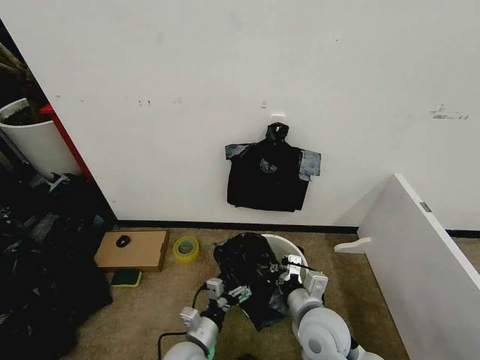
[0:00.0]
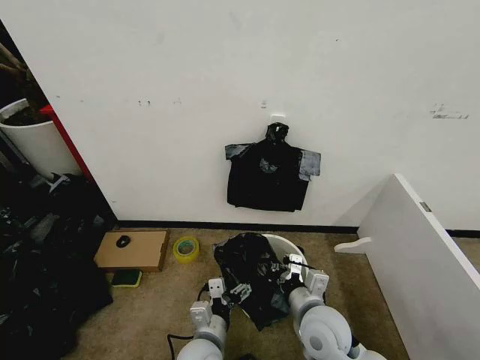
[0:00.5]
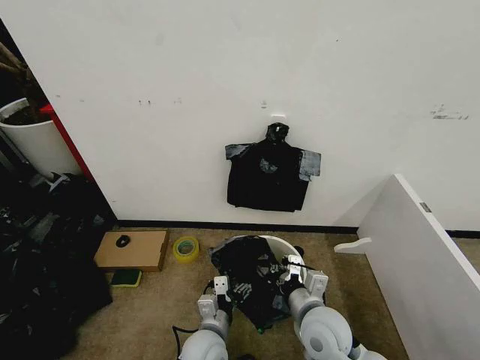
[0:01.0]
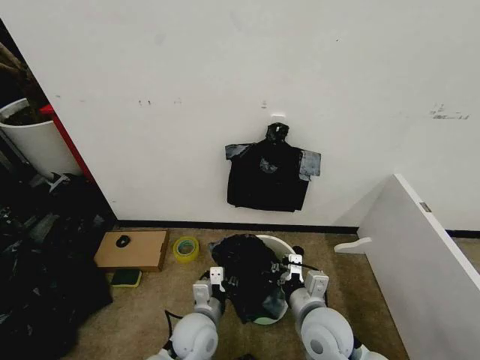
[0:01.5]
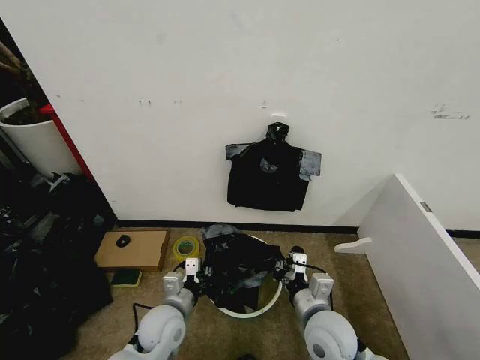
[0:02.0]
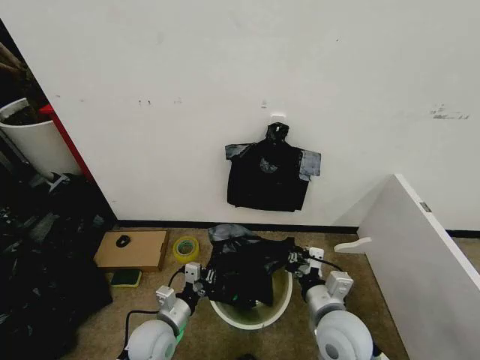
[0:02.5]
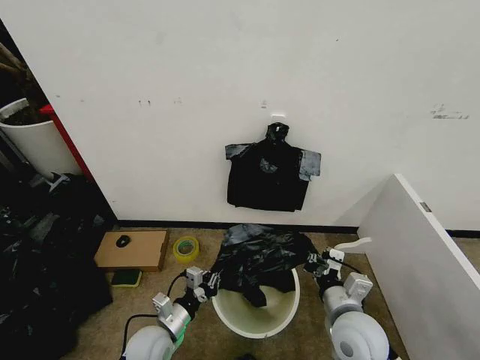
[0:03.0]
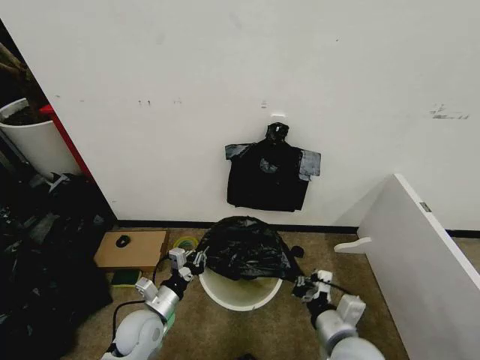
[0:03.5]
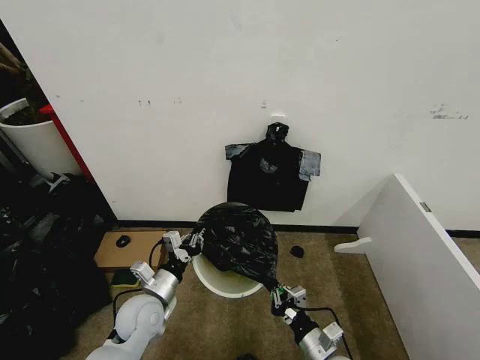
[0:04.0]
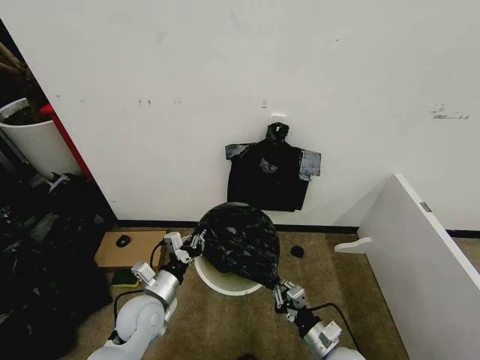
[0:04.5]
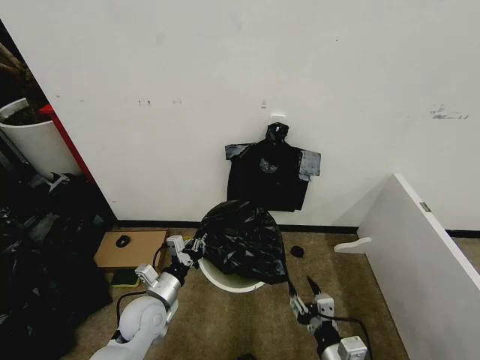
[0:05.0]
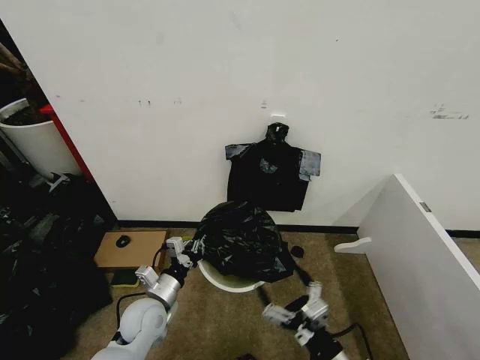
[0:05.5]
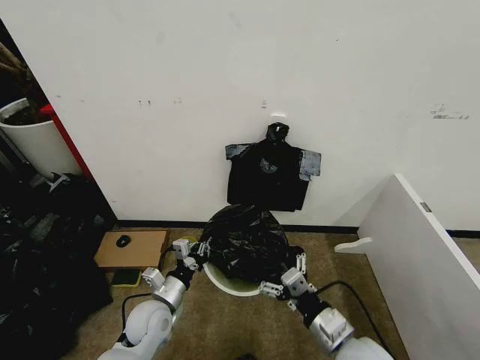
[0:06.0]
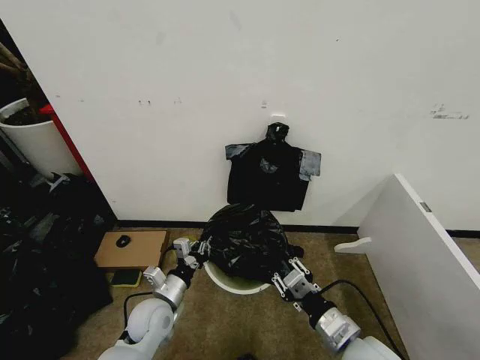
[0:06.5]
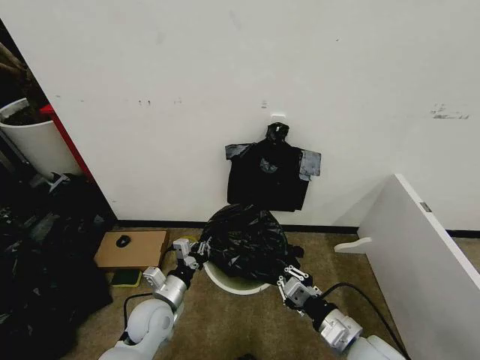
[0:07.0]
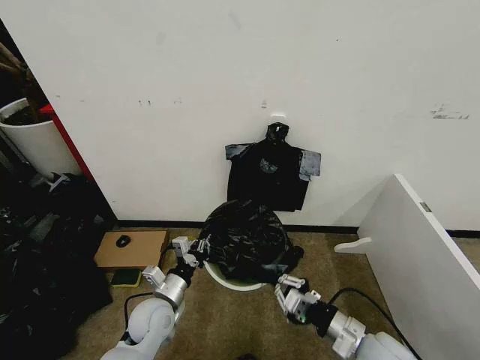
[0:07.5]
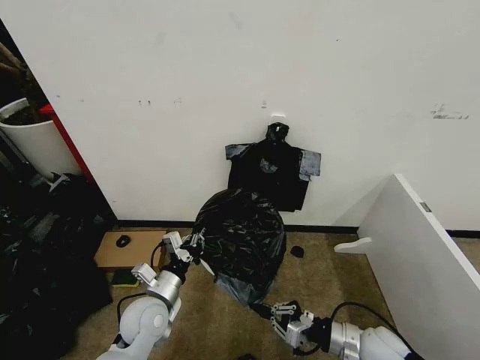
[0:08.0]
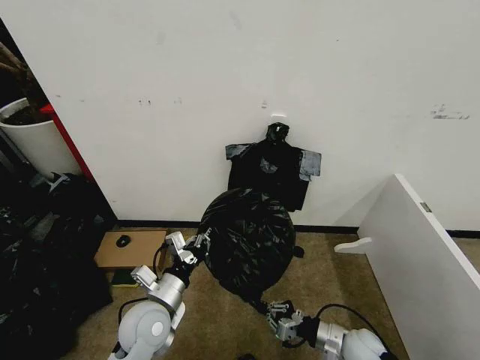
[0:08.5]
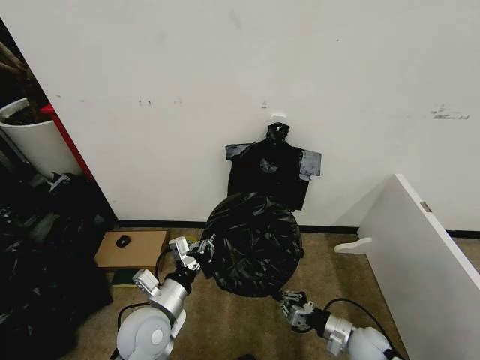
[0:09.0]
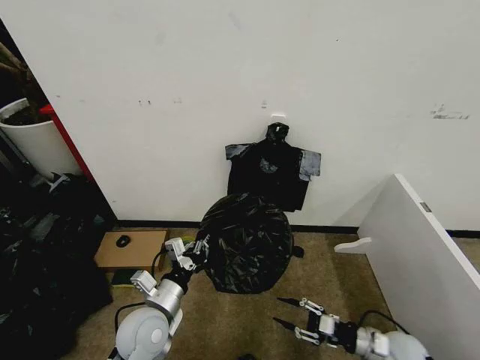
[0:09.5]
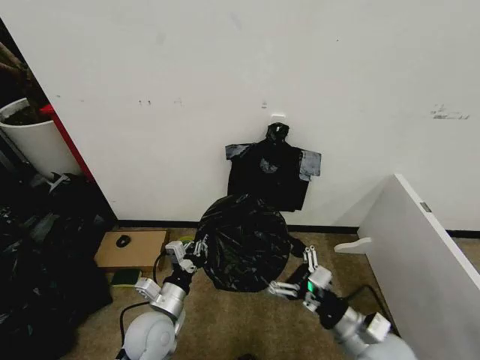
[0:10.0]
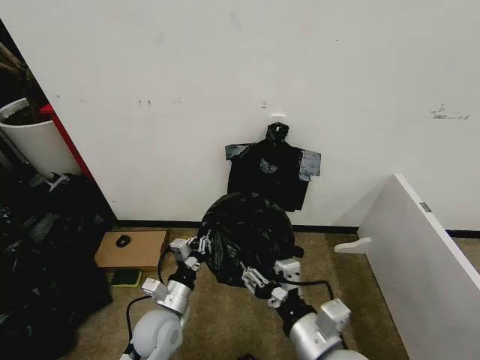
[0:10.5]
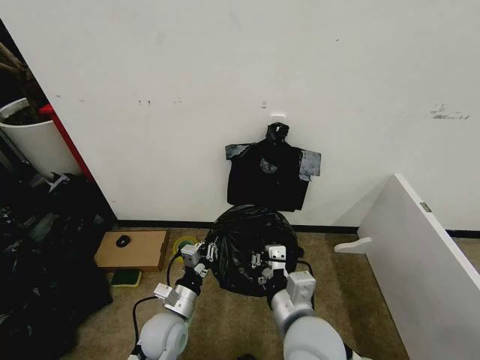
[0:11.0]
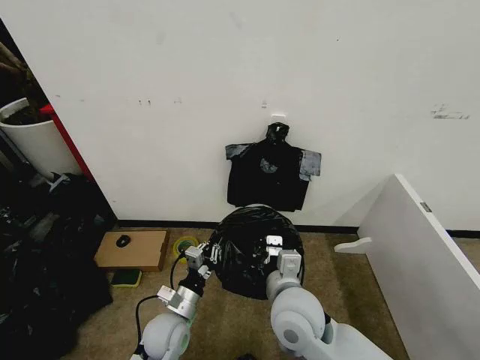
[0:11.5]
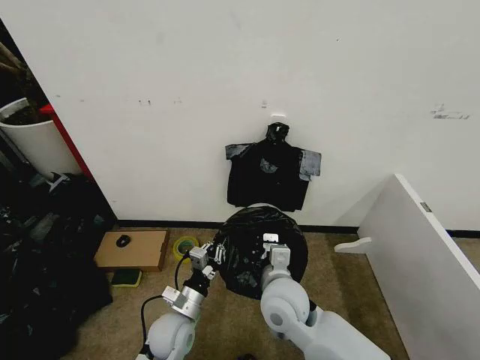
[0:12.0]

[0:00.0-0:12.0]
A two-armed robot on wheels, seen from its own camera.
Task of the whole recording: Place the garbage bag over the trash bin.
0:00.0 to 0:02.0: The left gripper travels upward and forward by about 10 cm, and closes its fingers.
0:02.0 to 0:04.0: The right gripper travels downward and backward by roughly 10 cm.
0:04.0 to 0:06.0: The right gripper shifts approximately 10 cm upward, and opens up.
0:06.0 to 0:08.0: The right gripper is displaced to the right and downward by roughly 10 cm, and closes its fingers.
0:08.0 to 0:10.0: The right gripper shifts approximately 5 cm upward, and opens.
0:10.0 to 0:12.0: The right gripper shifts some 20 cm to the left and forward, and closes. Meanwhile the left gripper shifts by roughly 5 cm.

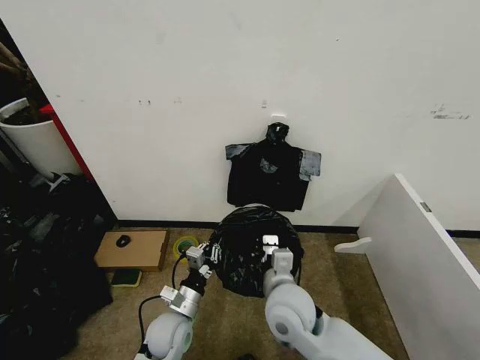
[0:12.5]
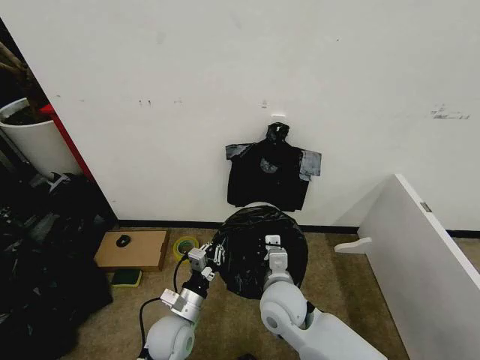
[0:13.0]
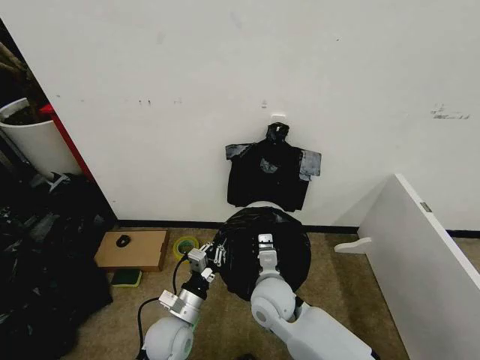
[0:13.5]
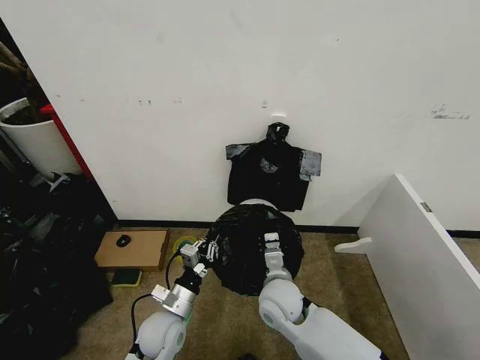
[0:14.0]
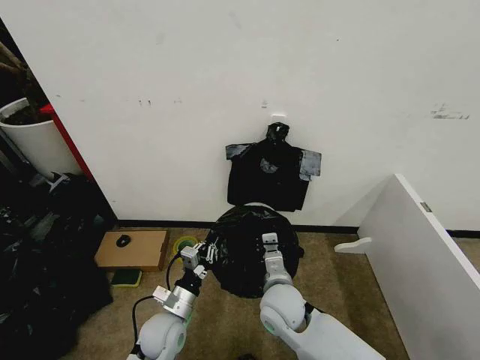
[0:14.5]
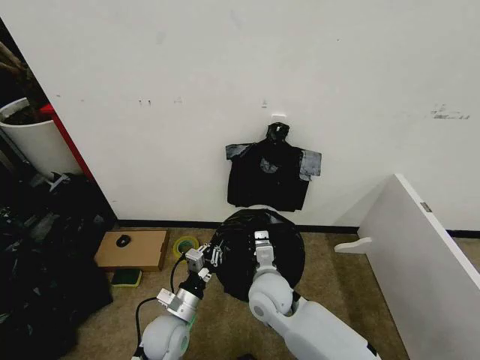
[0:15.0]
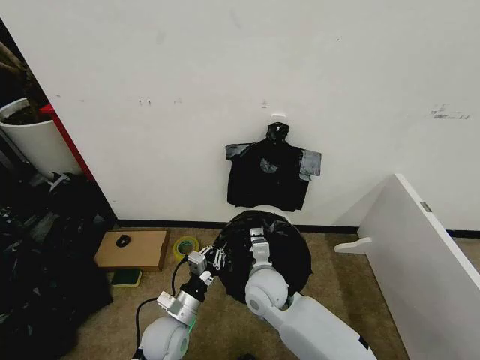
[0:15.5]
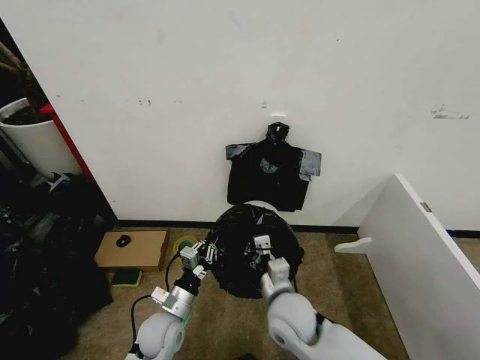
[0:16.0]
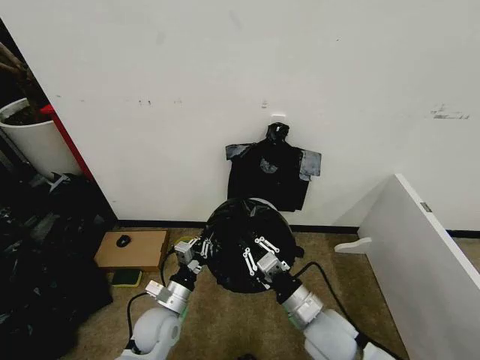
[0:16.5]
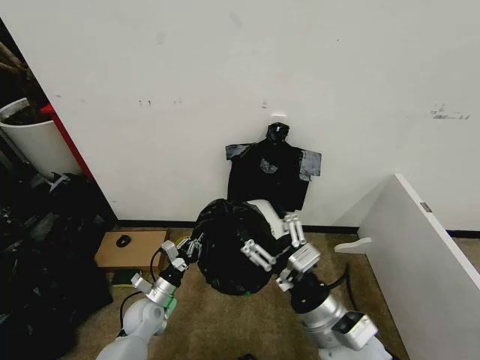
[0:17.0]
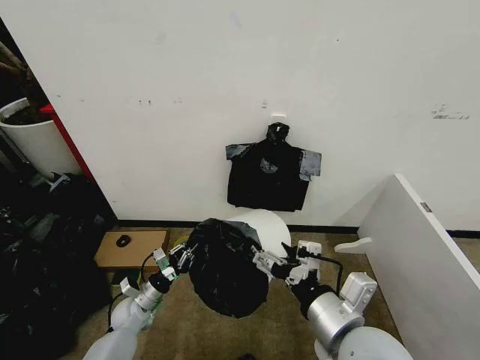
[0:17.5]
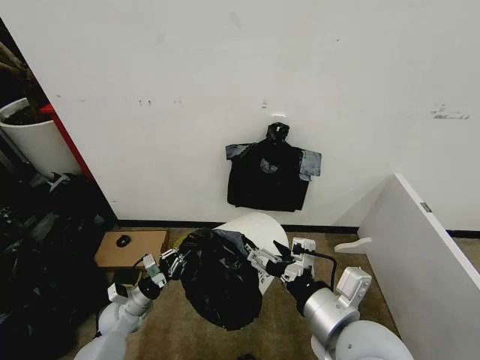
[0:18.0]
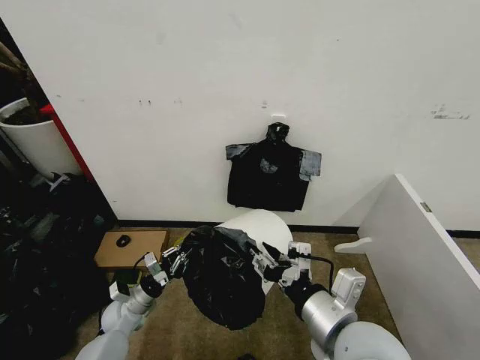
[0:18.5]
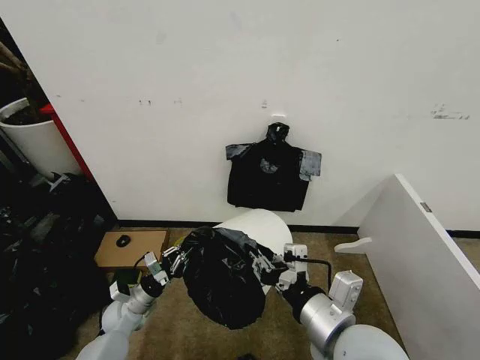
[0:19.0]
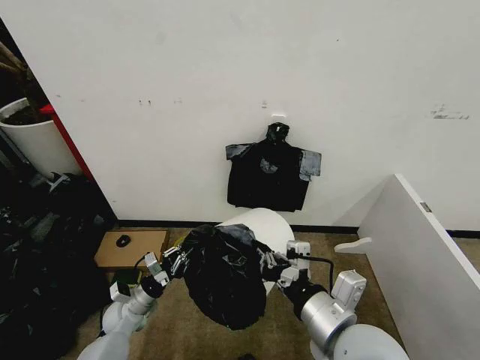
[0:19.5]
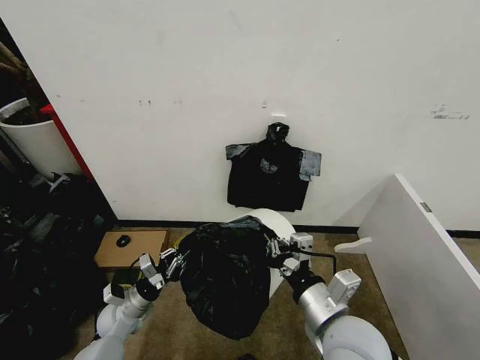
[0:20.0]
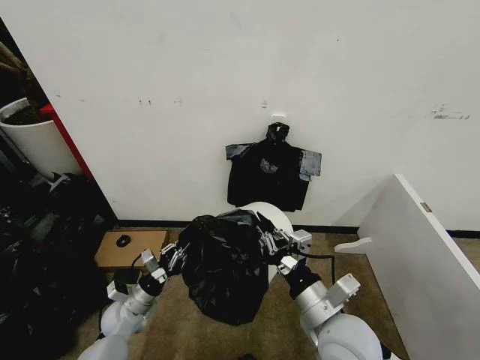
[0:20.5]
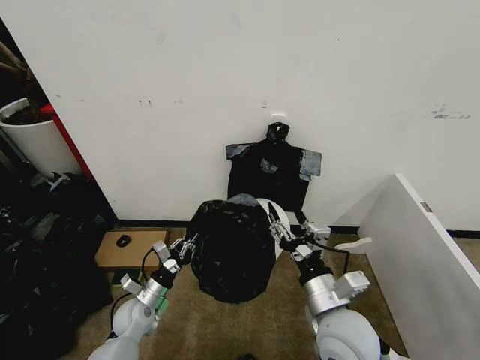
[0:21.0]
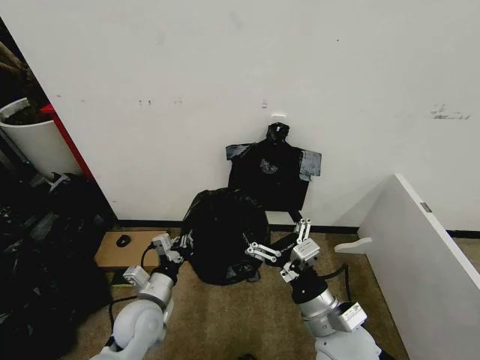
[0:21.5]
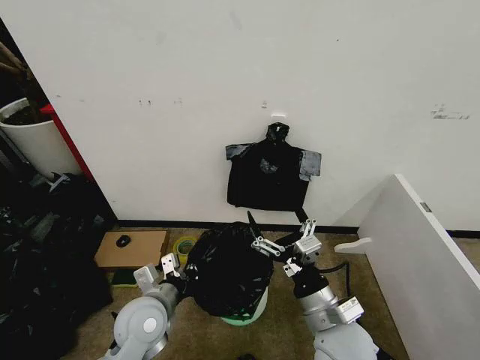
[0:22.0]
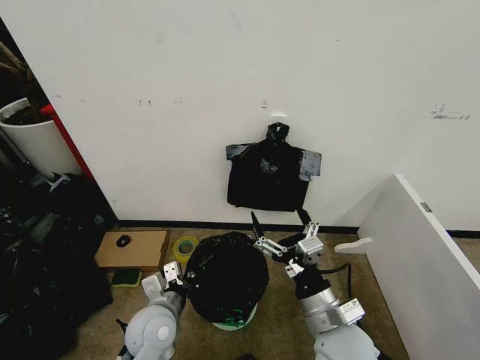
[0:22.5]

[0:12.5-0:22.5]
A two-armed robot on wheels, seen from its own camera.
Task of the whole recording: Place the garbage bag over the trash bin.
0:12.5 to 0:14.5: The right gripper moves downward, about 5 cm.
0:14.5 to 0:16.5: The right gripper moves to the right and backward, roughly 10 cm.
0:16.5 to 0:18.5: The right gripper travels upward and backward by some 15 cm, and opens, then closes once more; the left gripper travels to the left, downward and forward by some 15 cm.
0:18.5 to 0:20.5: The right gripper is displaced downward by roughly 10 cm.
0:20.5 to 0:22.5: The right gripper opens its fingers. The left gripper shifts some 20 cm upward, to the right and backward.

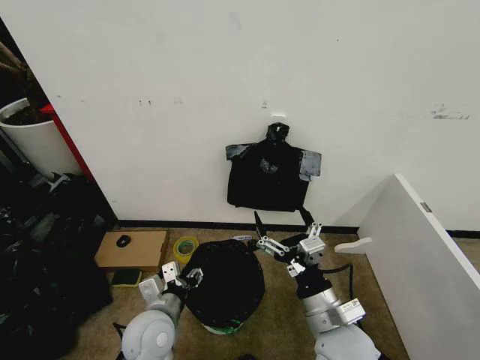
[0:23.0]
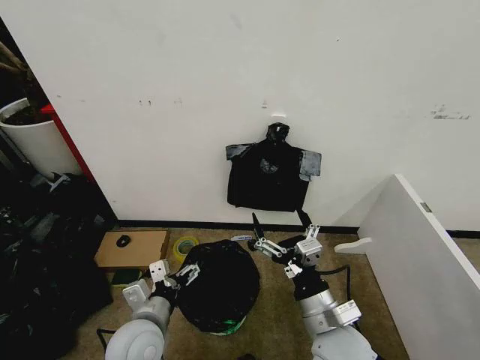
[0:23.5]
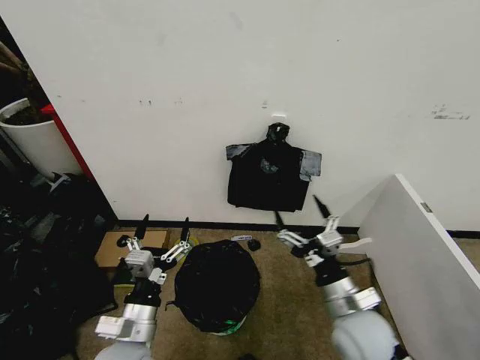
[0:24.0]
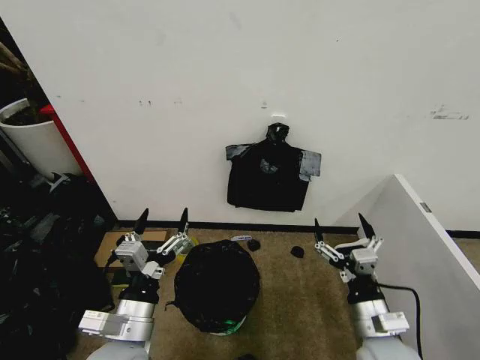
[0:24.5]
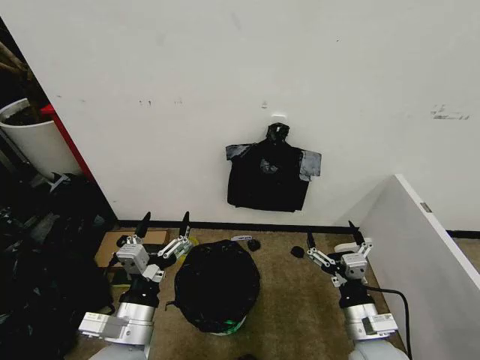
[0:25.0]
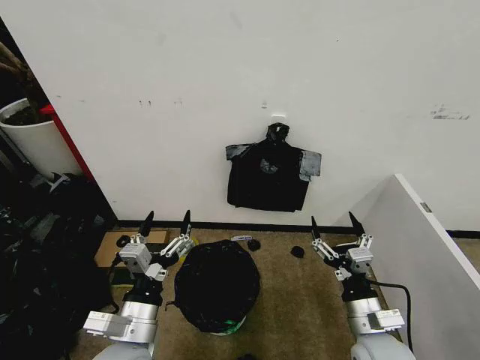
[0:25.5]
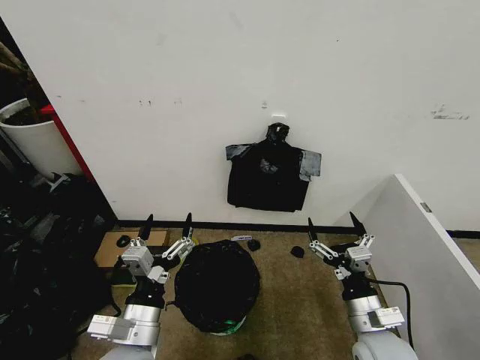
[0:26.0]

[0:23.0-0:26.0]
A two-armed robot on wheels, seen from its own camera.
Task of the whole recording: Place the garbage bag over the trash bin.
0:23.0 to 0:24.5: The right gripper heads to the right, covering some 10 cm. Meanwhile the left gripper is displaced upward and backward by roughly 10 cm, and opens.
0:24.5 to 0:26.0: The grippers stay close to where they were, moving slightly.
